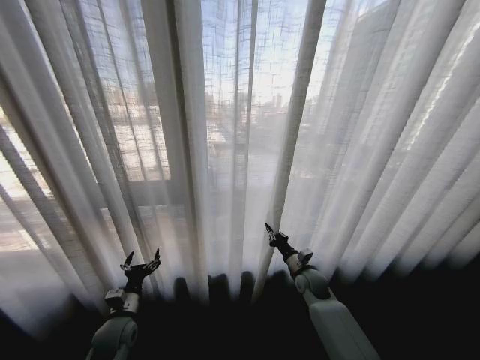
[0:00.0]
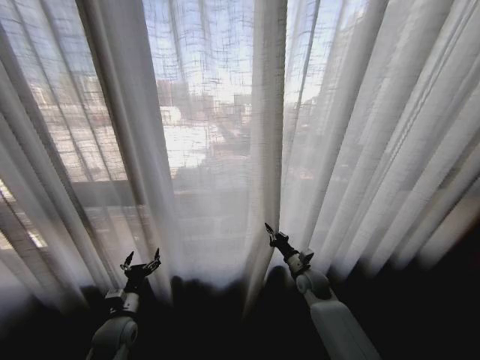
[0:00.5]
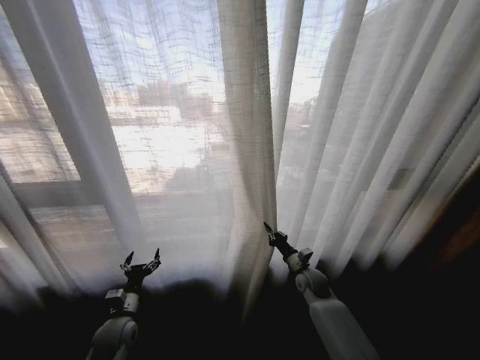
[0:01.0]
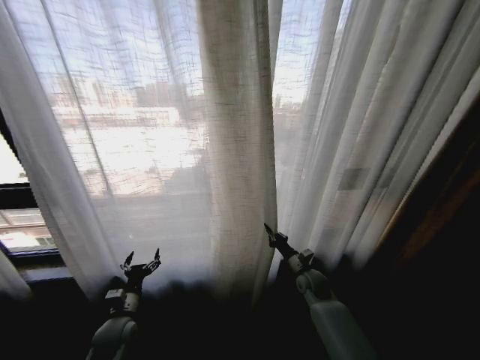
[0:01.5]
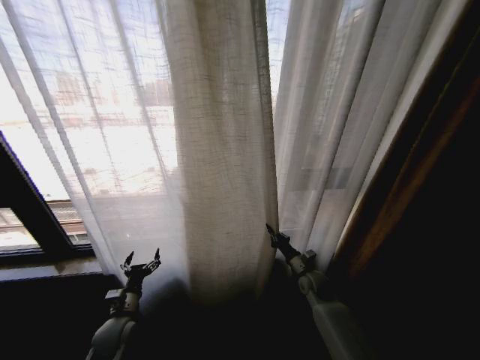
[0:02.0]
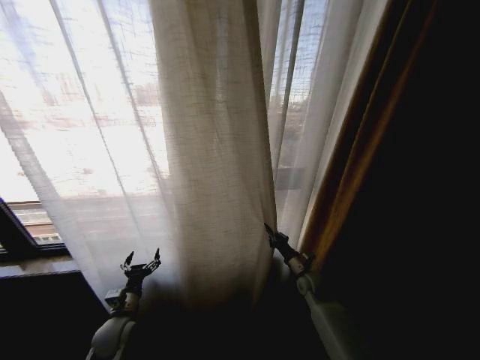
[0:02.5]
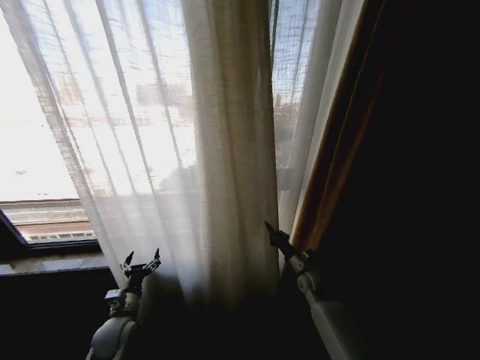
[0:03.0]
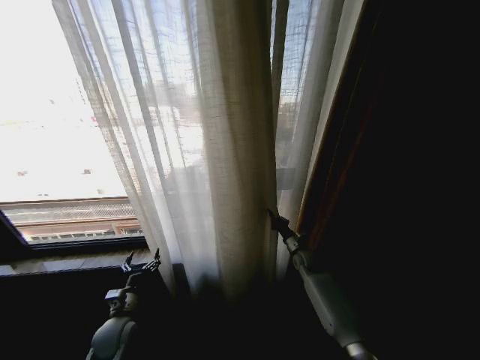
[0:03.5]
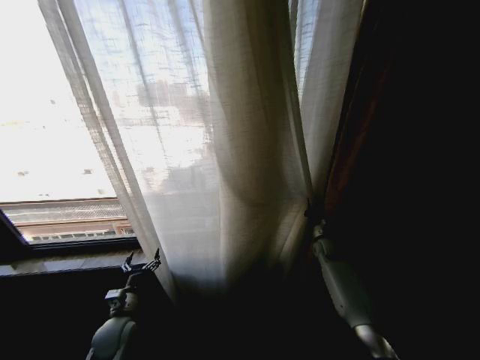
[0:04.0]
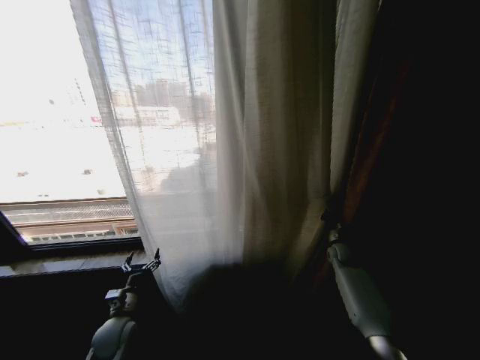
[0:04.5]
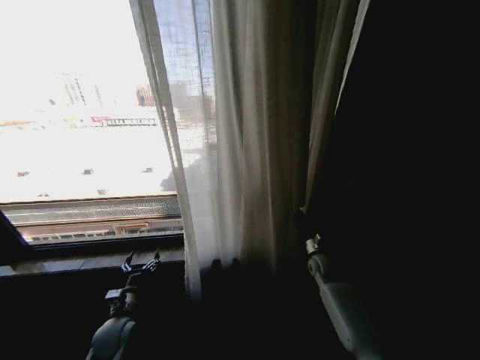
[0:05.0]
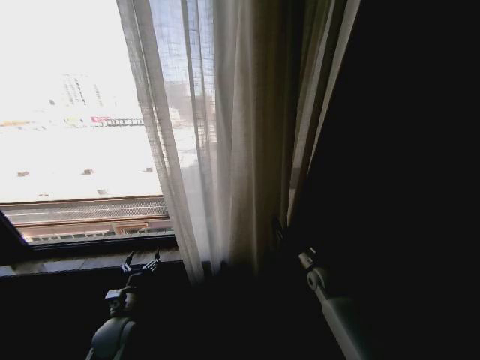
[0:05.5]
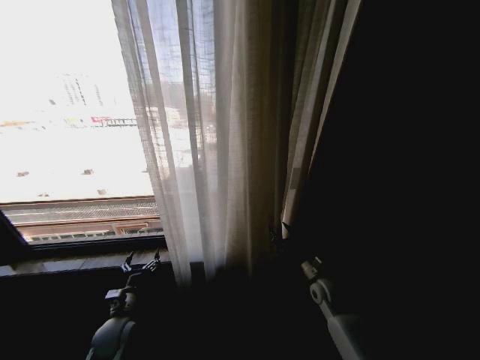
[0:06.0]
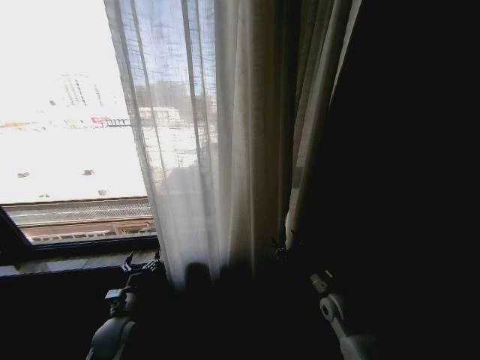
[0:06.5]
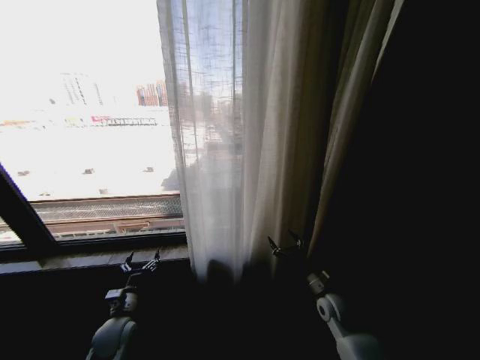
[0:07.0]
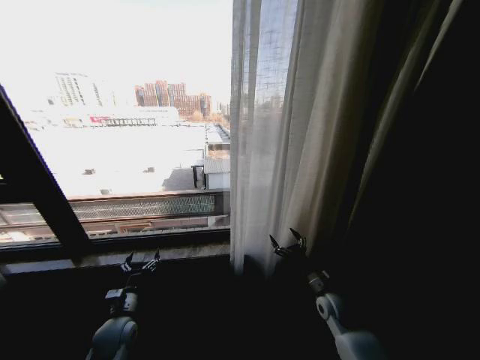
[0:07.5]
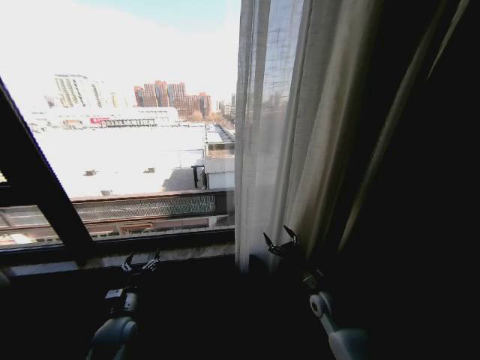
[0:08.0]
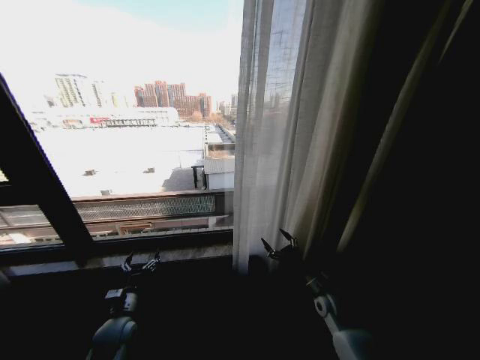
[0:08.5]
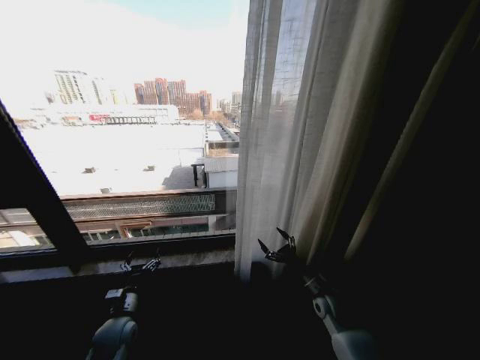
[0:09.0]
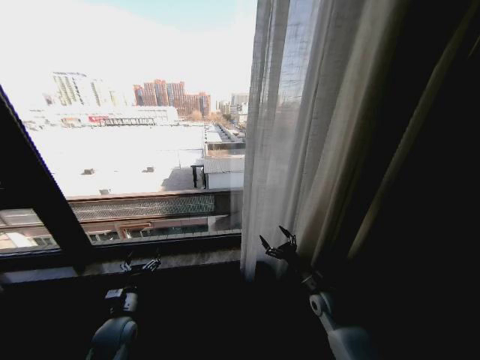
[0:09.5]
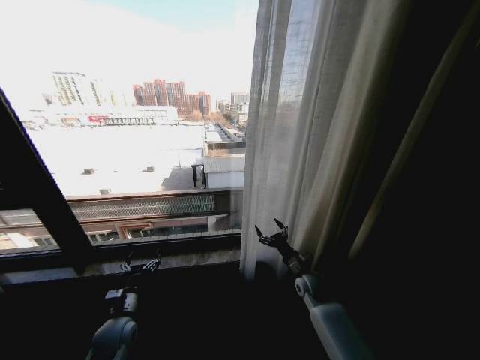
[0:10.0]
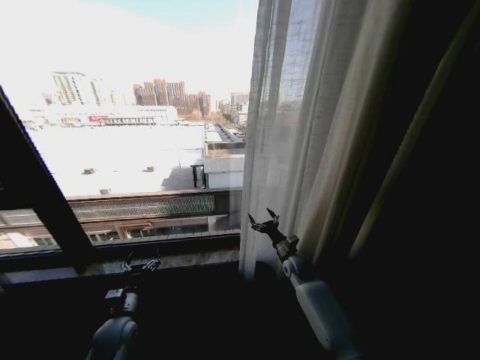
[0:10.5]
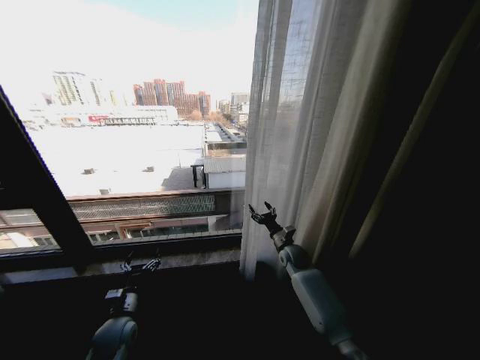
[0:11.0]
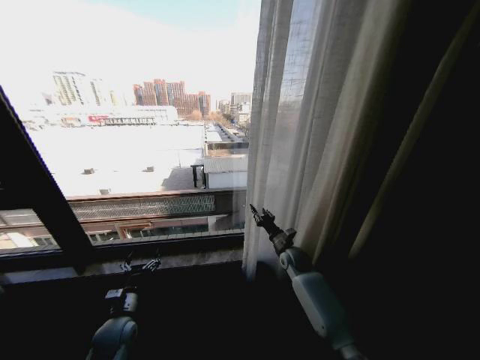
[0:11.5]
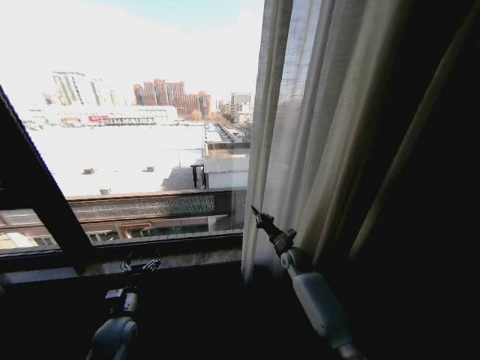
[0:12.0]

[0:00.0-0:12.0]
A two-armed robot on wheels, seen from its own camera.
Task of the whole recording: Open the curtains by pulling them apart, changing their state from closed to fully open.
0:02.0 to 0:04.0: The right gripper moves forward and to the right, about 15 cm.
0:04.0 to 0:06.0: The right gripper travels backward and to the left by about 15 cm, and opens up.
0:08.0 to 0:10.0: The right gripper is displaced forward by approximately 5 cm.
0:10.0 to 0:12.0: The right gripper is displaced forward by approximately 10 cm, and closes.

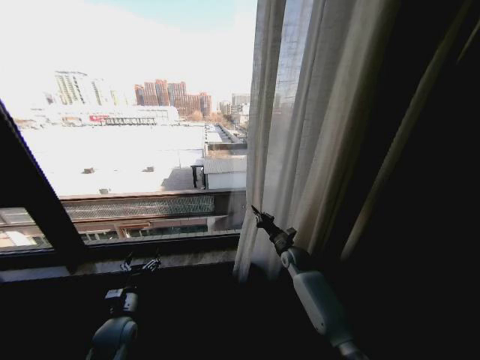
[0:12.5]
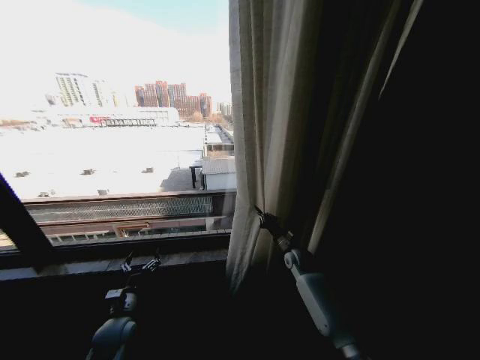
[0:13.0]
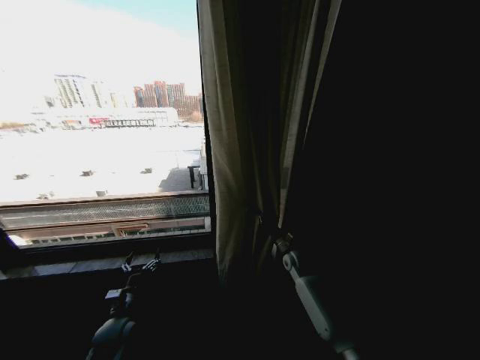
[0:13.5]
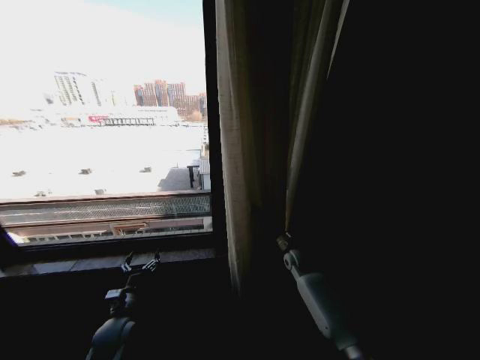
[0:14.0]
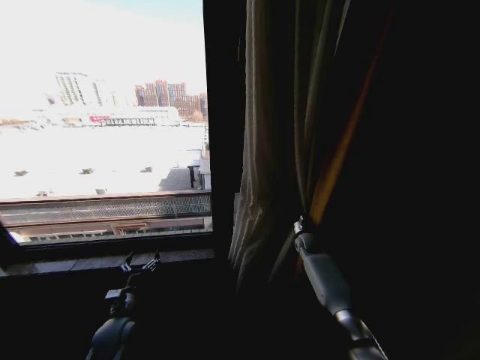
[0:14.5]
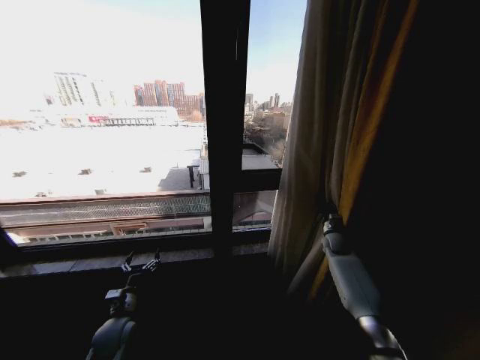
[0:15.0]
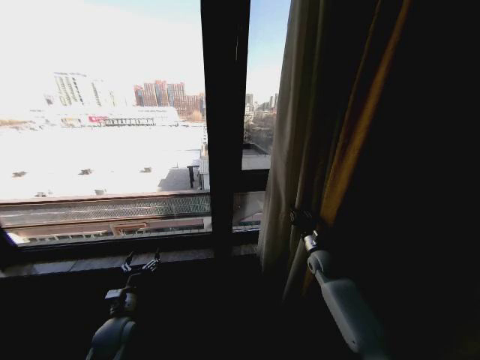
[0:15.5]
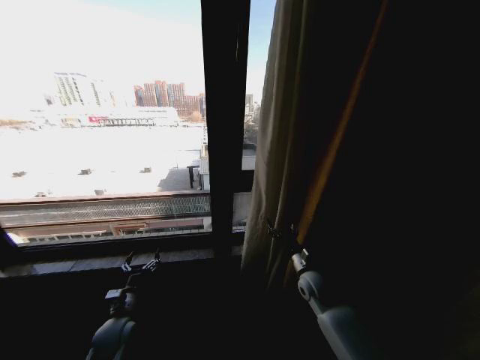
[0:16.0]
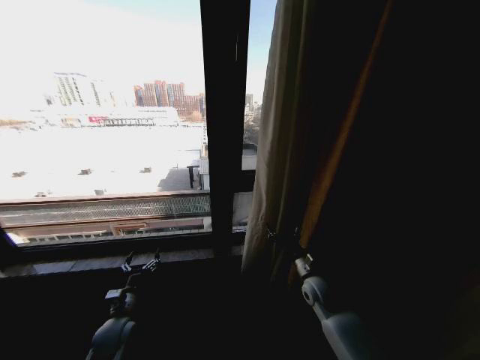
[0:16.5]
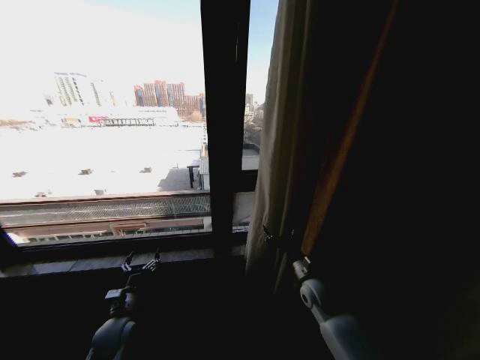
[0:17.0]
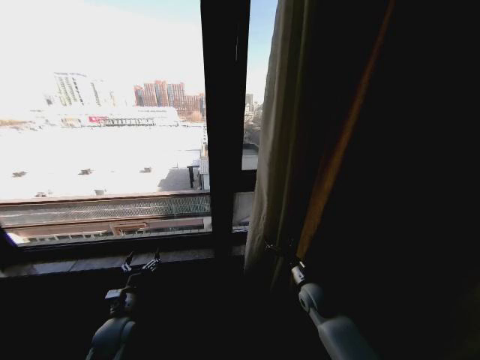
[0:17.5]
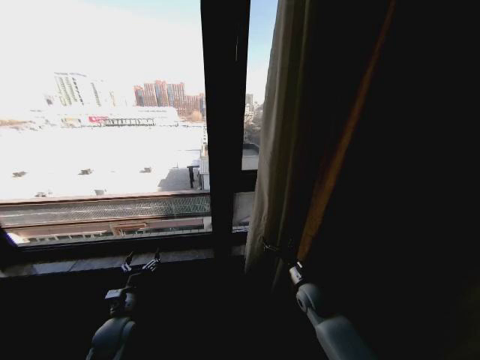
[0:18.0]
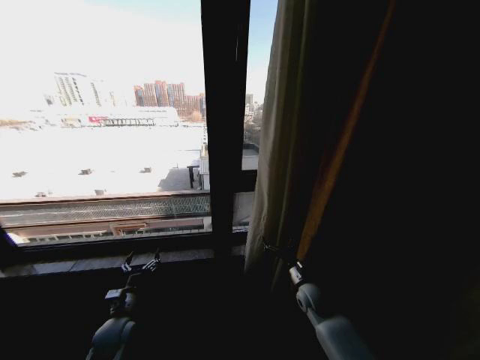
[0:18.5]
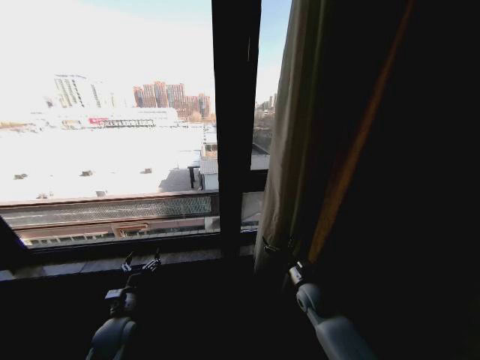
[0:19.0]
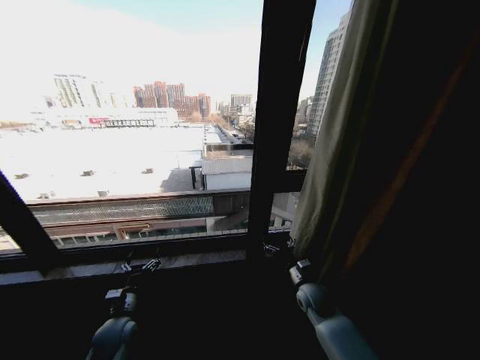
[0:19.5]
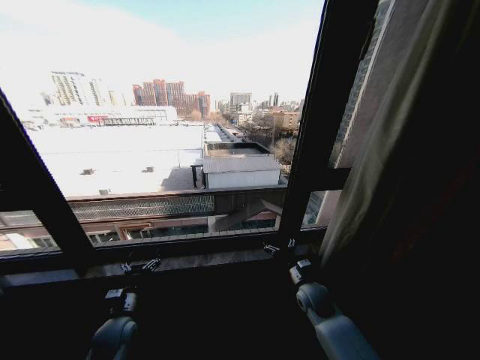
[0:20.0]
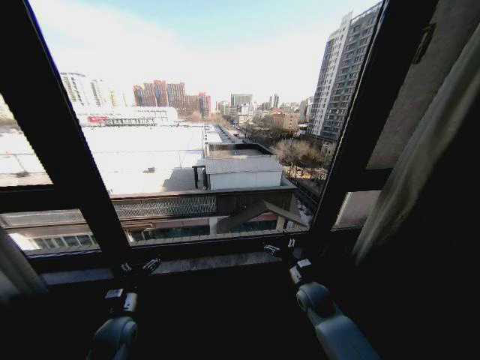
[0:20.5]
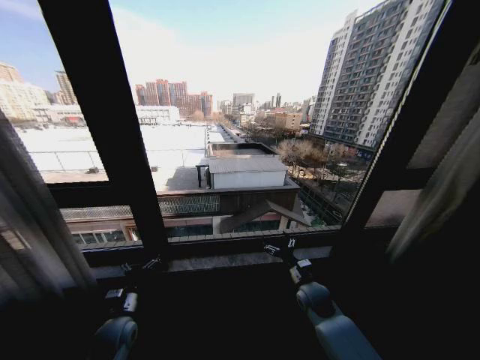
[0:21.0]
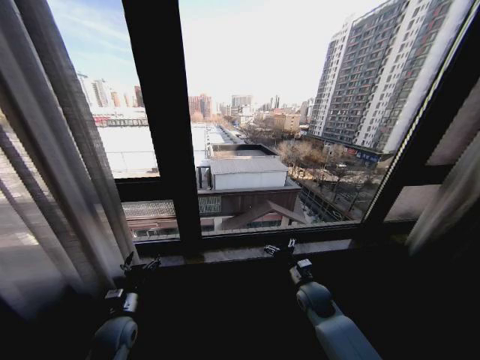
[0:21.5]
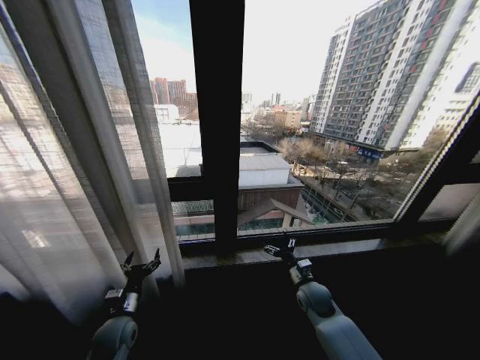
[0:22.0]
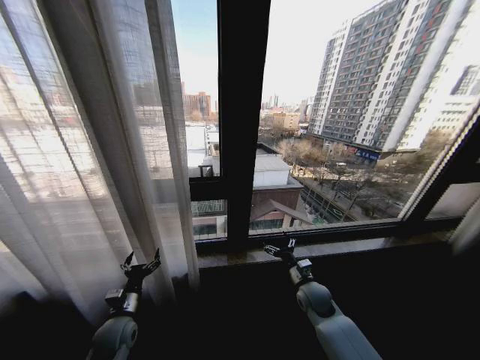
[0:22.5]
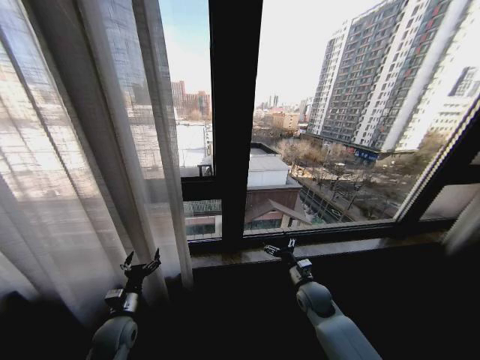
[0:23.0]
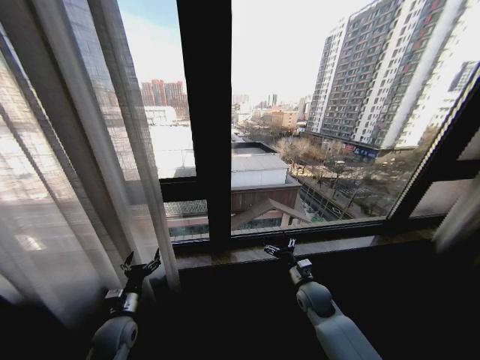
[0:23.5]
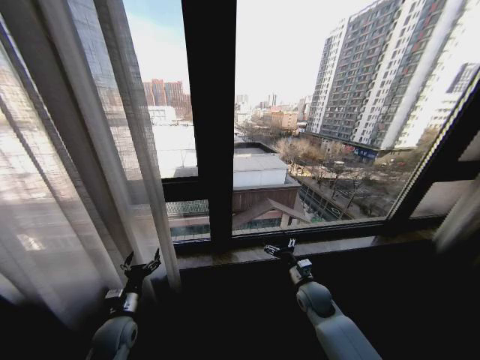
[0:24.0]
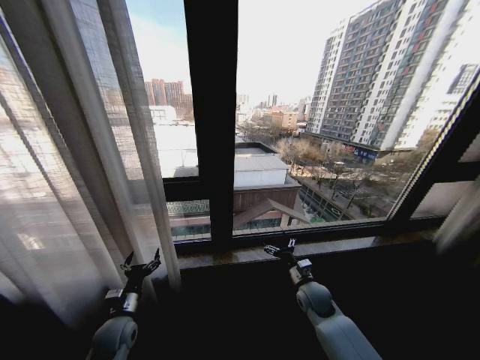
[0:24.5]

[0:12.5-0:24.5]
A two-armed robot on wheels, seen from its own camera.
Task of the whole recording: Open the curtains by pulling them apart, changing their state from closed to fully open.
0:12.5 to 0:14.5: The right gripper shifts roughly 10 cm to the right and forward.
0:14.5 to 0:16.5: The right gripper heads backward, covering approximately 20 cm, and opens.
0:16.5 to 0:18.5: The grippers move only a little.

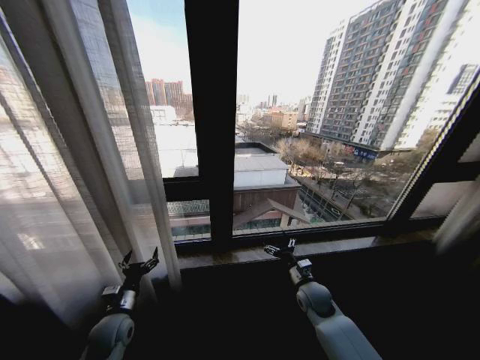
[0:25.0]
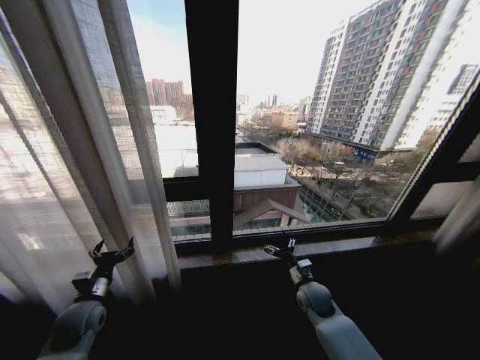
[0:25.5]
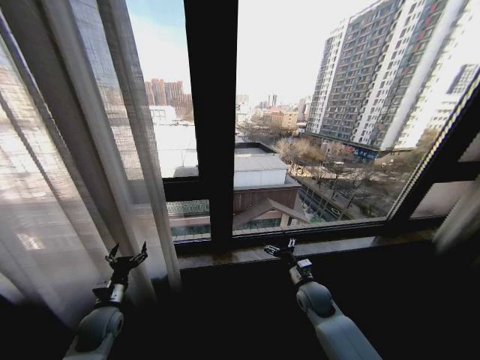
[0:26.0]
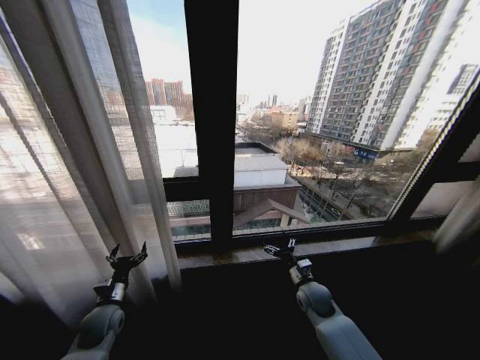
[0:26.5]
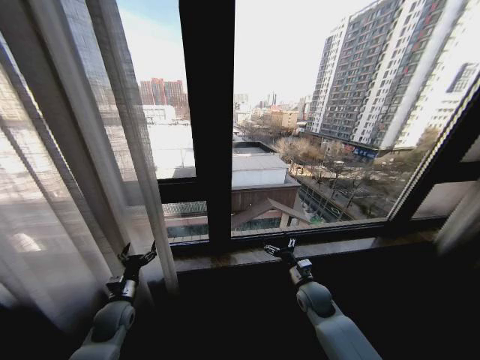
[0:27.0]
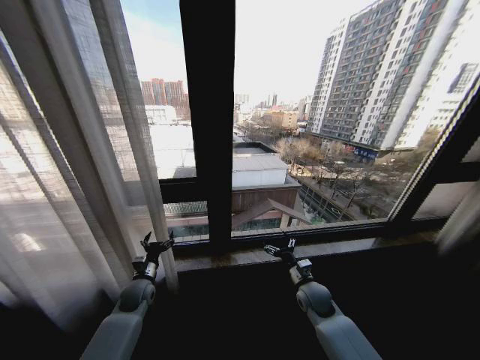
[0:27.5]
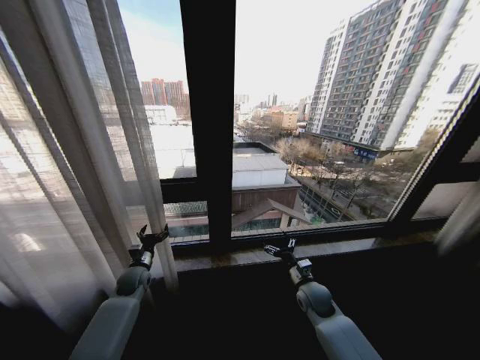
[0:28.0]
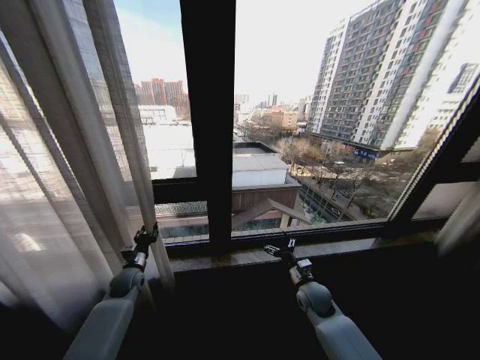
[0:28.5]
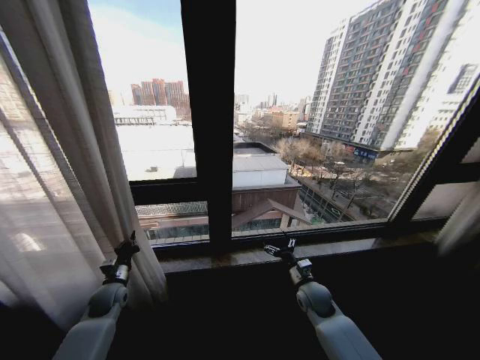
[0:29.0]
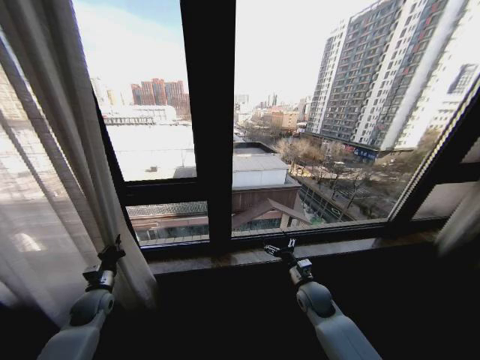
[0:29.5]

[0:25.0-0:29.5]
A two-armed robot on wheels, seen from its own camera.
Task of the whole recording: Open the curtains by pulling them apart, changing their state from closed to fully open.
0:27.0 to 0:29.5: The left gripper shifts roughly 10 cm to the left, and closes its fingers.
